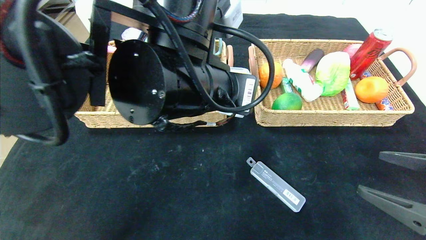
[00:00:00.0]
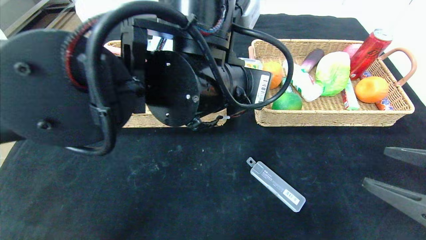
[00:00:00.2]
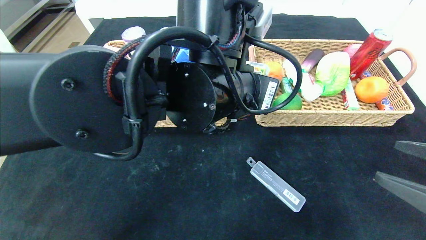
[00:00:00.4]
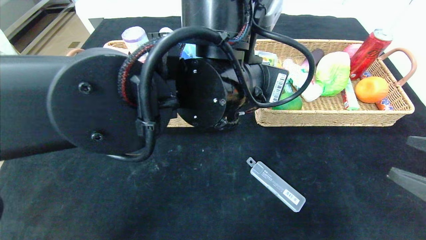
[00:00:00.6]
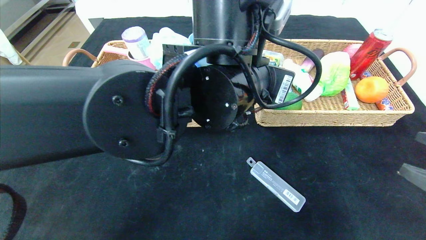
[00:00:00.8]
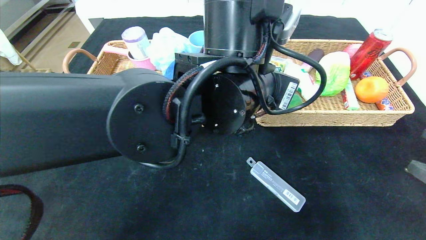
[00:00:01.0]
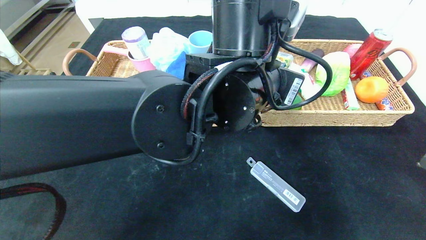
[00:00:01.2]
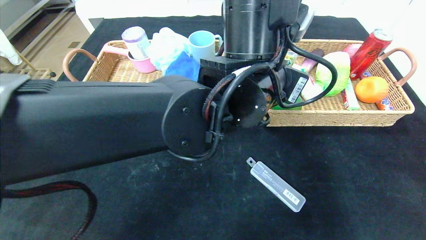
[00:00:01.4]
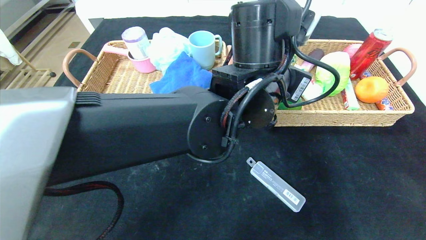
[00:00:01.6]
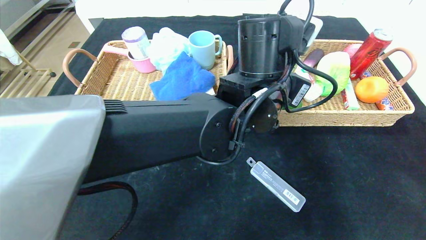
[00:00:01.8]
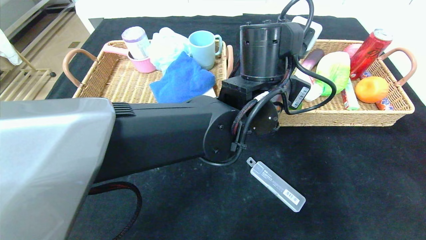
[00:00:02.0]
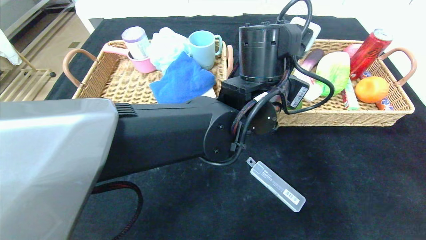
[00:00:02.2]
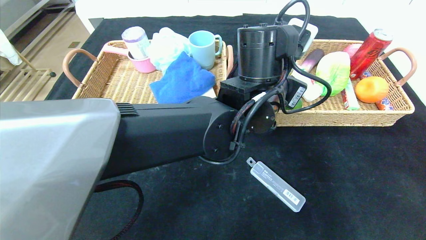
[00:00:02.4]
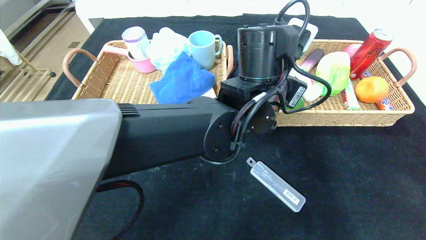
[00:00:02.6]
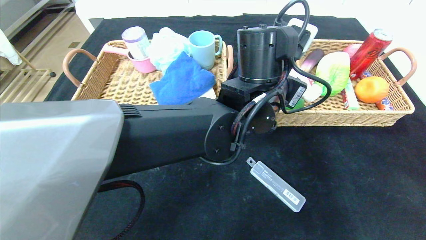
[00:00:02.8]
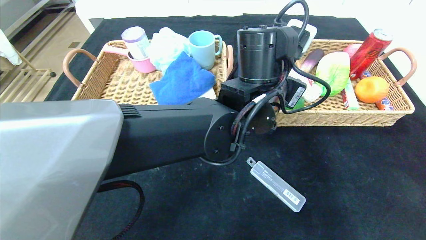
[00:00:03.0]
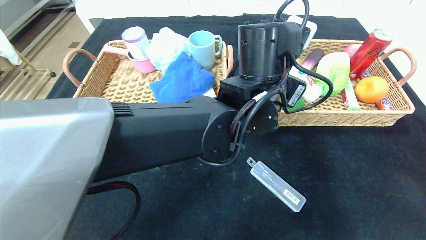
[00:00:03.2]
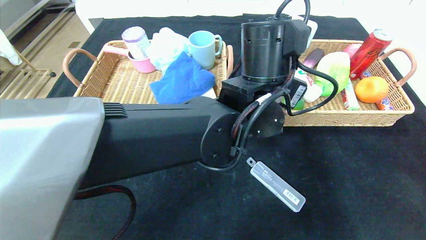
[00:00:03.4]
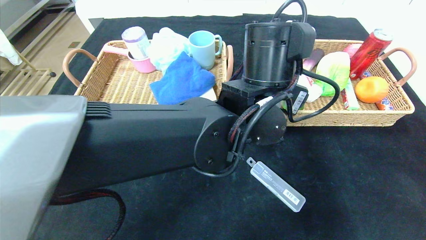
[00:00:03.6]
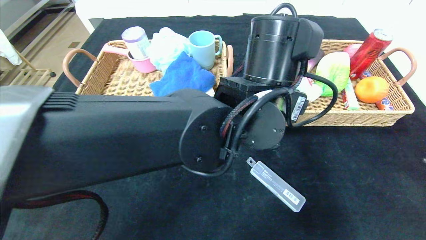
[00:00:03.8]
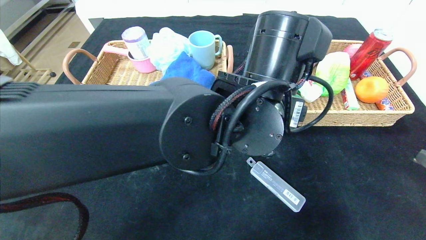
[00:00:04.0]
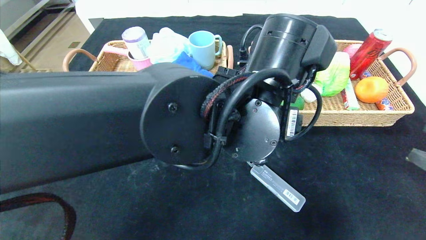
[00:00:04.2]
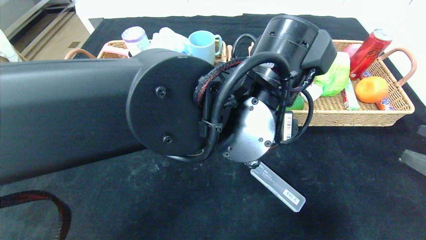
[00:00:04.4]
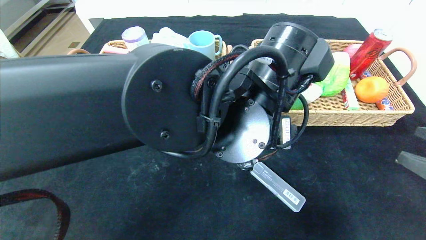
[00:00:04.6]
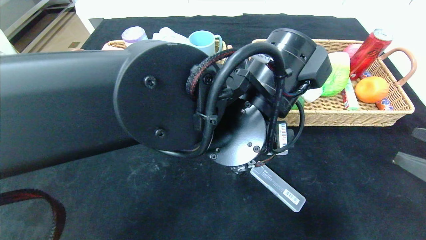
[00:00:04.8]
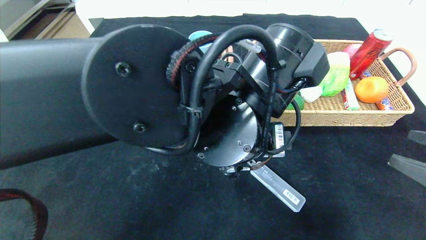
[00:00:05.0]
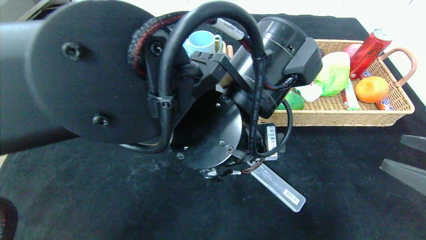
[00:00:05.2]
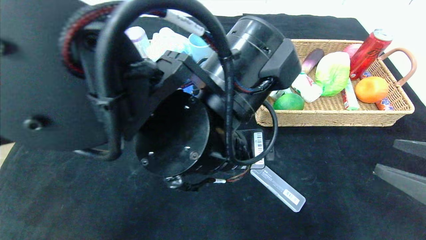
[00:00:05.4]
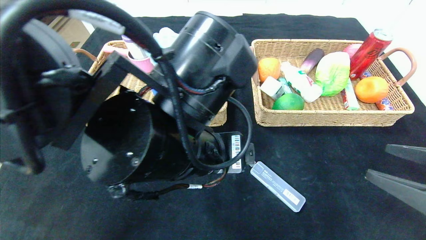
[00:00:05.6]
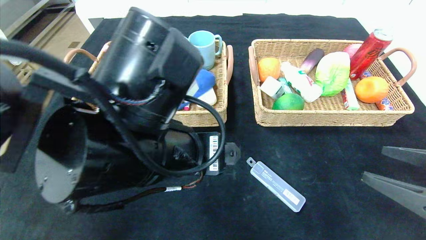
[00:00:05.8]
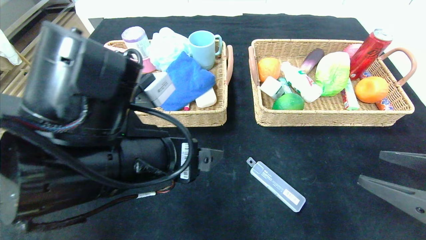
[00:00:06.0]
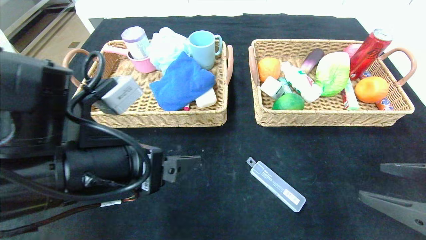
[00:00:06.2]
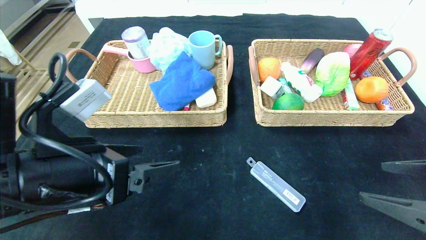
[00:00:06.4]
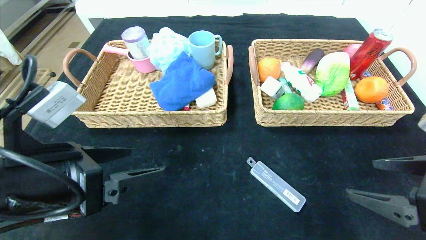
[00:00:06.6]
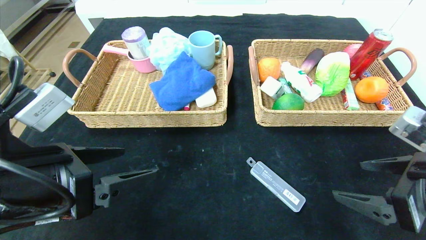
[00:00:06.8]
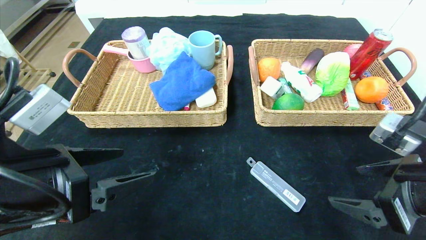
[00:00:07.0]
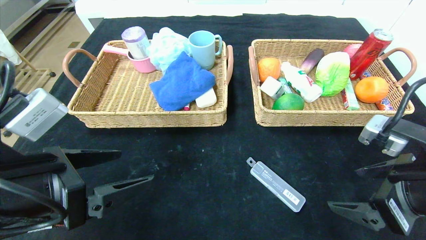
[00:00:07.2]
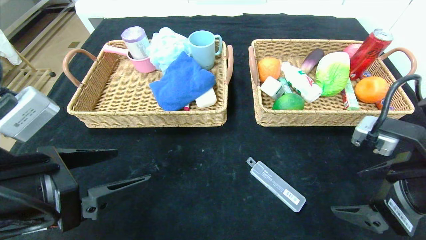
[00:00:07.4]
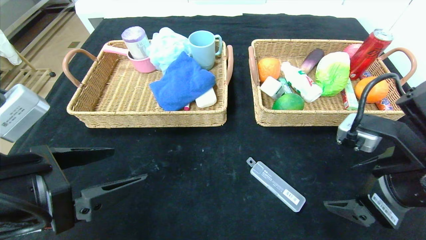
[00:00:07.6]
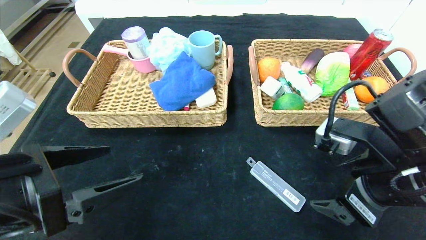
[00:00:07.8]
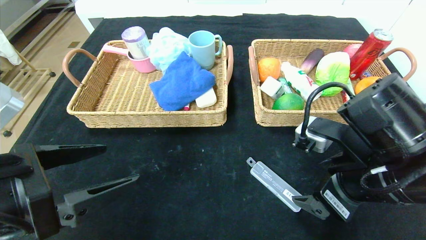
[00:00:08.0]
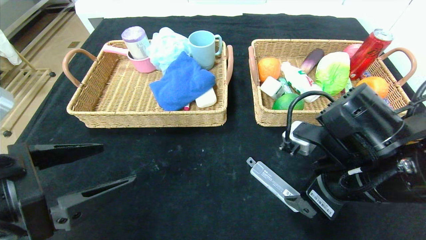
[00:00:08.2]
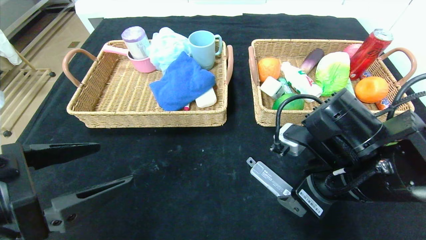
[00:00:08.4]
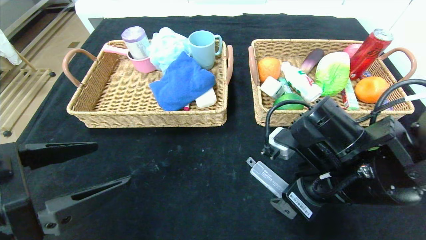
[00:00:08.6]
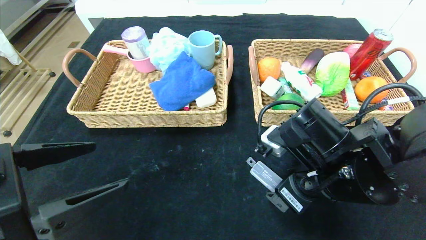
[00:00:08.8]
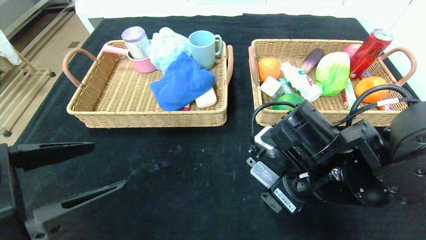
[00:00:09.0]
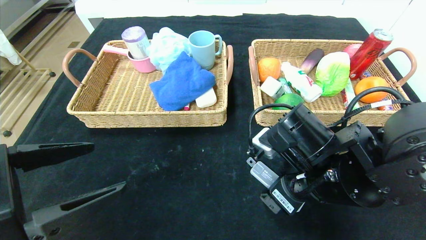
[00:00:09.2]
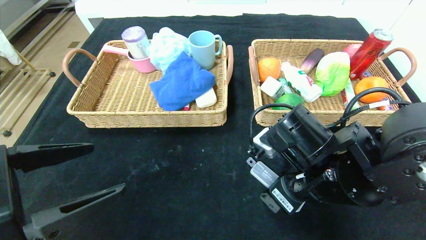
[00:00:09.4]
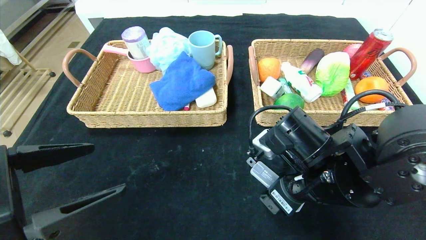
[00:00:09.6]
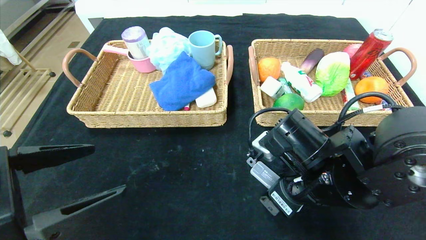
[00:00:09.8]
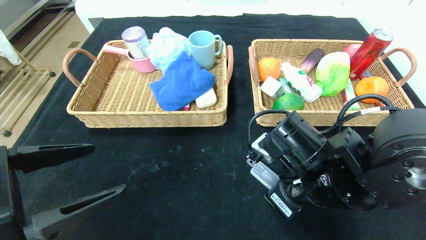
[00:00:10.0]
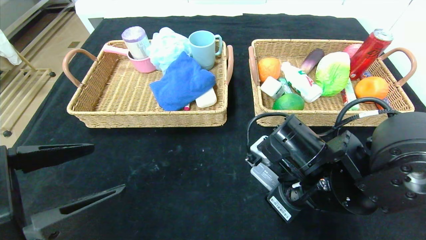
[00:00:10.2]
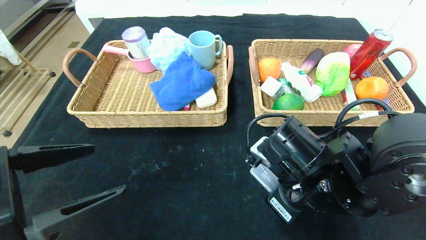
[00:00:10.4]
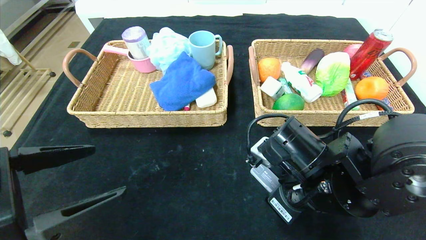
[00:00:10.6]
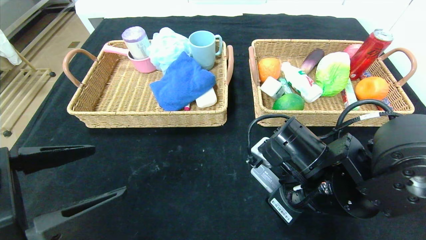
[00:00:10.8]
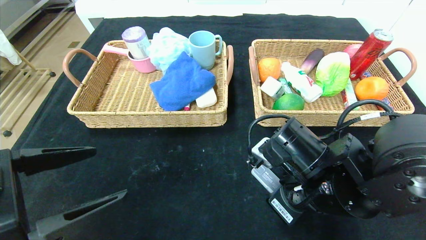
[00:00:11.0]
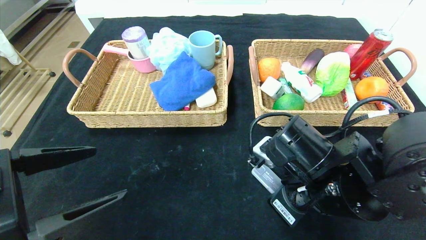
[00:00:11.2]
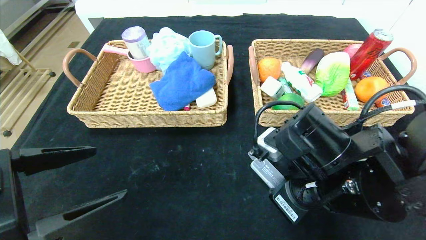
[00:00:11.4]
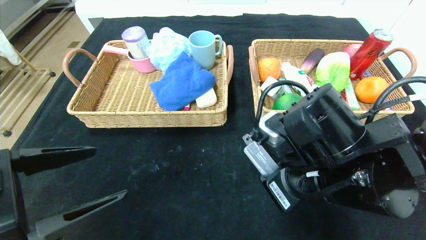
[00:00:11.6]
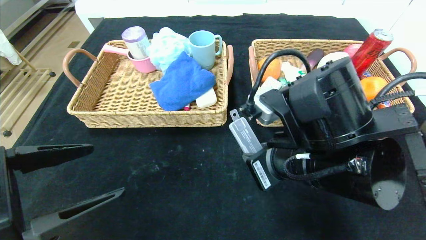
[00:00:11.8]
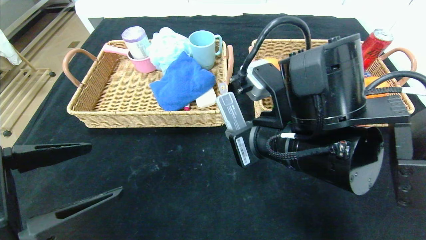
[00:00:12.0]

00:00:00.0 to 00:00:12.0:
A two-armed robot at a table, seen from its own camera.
Step, 00:00:00.0 to 00:00:04.4: Pick up the square chewing gum and put it in the right basket.
00:00:00.0 to 00:00:01.6: The left gripper moves to the right and forward, approximately 10 cm, while the right gripper ends up roughly 5 cm from where it was.
00:00:01.6 to 00:00:03.0: The left gripper opens up.
00:00:03.0 to 00:00:04.4: The left gripper shifts some 5 cm backward.
00:00:04.4 to 00:00:06.0: The left gripper moves to the left, roughly 15 cm.
00:00:06.0 to 00:00:07.6: The grippers both shift to the left by roughly 10 cm.
00:00:07.6 to 00:00:09.0: The right gripper heads to the left, covering some 10 cm.
00:00:09.0 to 00:00:10.4: The right gripper closes.
00:00:10.4 to 00:00:12.0: The right gripper shifts some 5 cm upward.

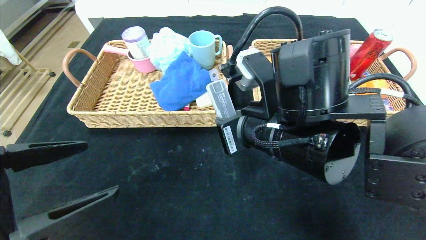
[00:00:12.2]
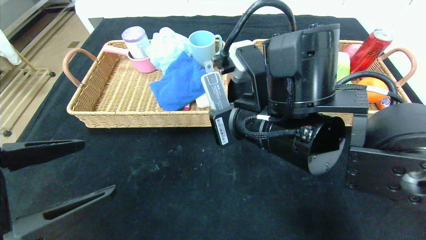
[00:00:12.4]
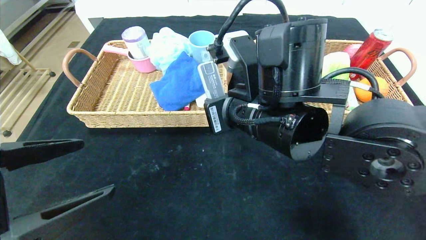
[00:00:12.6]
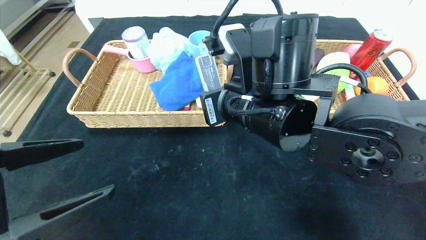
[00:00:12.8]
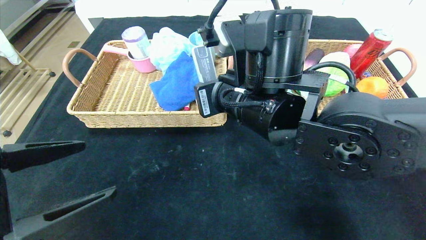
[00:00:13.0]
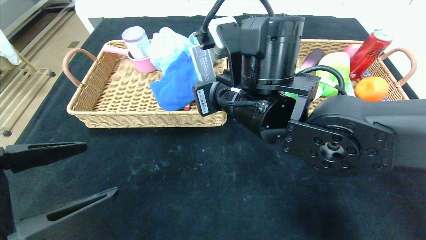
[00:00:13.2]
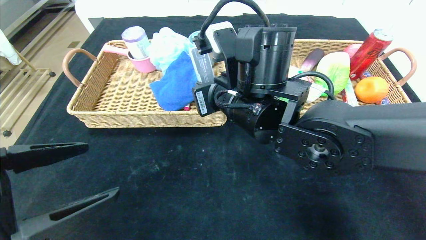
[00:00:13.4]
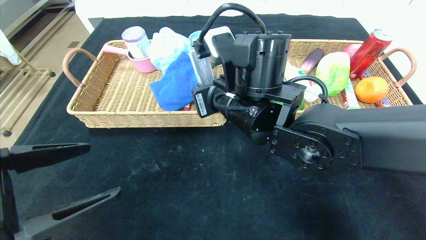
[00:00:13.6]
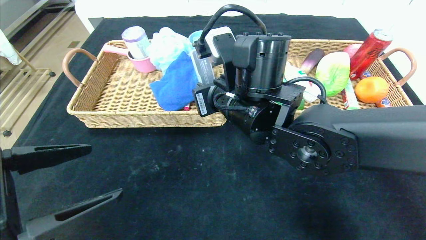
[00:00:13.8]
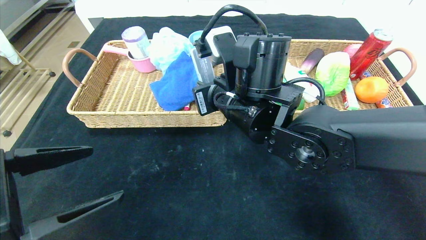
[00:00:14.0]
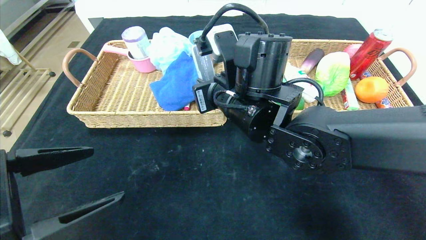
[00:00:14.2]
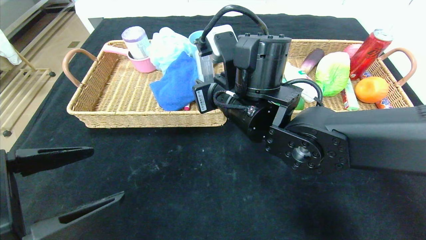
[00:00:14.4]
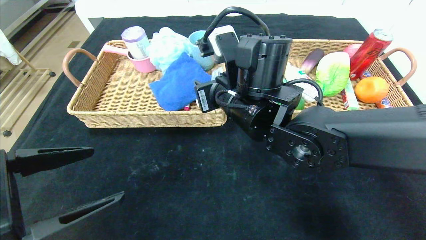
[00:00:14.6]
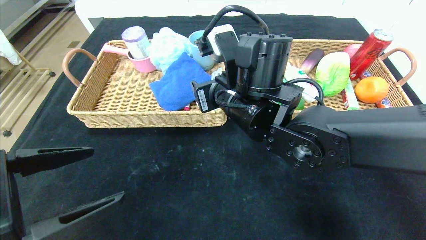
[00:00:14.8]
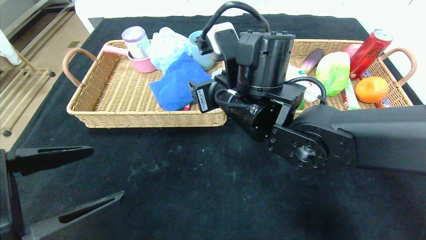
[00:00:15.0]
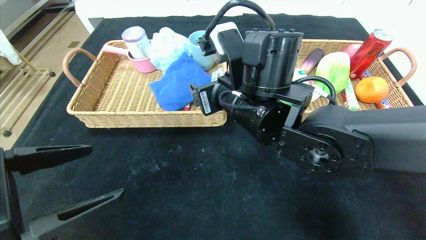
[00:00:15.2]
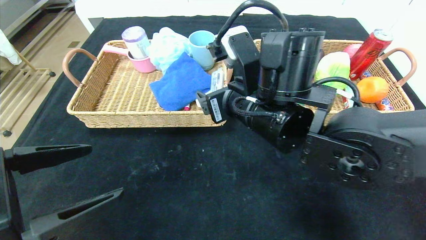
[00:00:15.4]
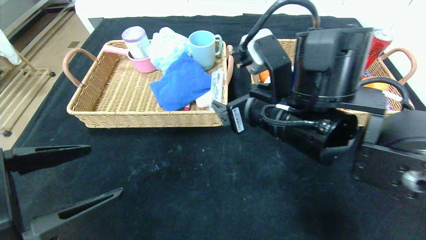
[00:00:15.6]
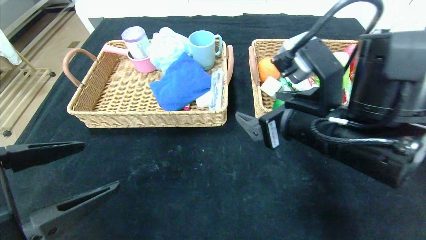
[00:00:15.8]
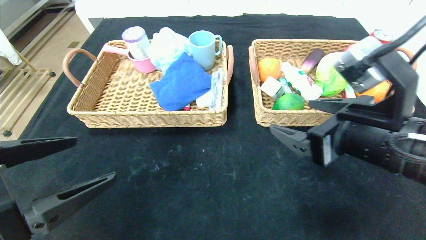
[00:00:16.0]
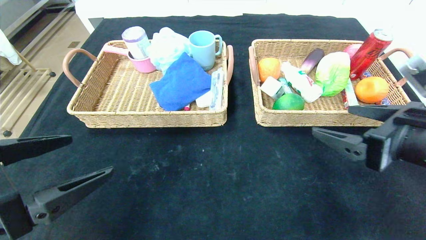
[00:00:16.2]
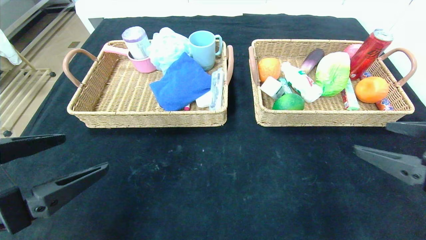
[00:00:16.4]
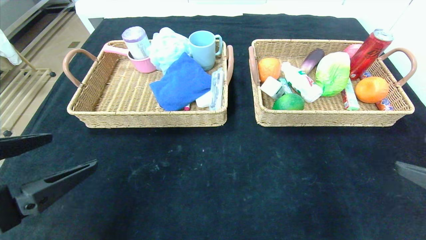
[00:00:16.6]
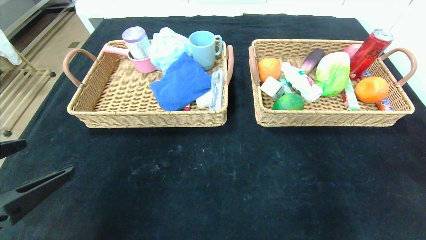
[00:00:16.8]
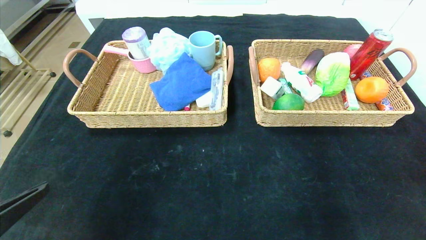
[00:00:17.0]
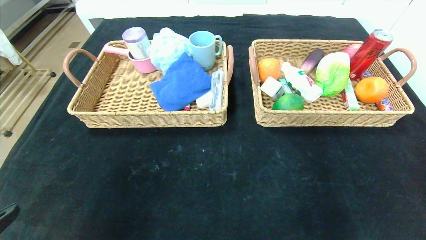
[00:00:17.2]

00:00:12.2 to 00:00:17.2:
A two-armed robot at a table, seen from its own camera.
Step, 00:00:12.2 to 00:00:17.0: Pick up the compass and put it in the left basket.
00:00:12.2 to 00:00:13.8: The right gripper travels forward by some 5 cm.
00:00:13.8 to 00:00:15.6: The right gripper moves to the right, approximately 5 cm, and opens its fingers.
00:00:15.6 to 00:00:17.2: The left gripper shifts roughly 10 cm backward; the right gripper shifts about 35 cm to the right and backward.
